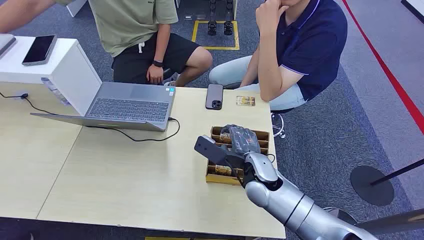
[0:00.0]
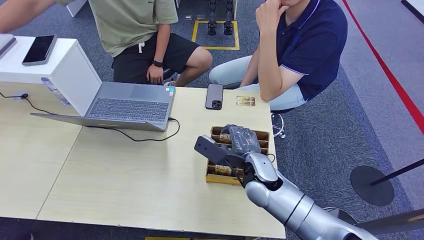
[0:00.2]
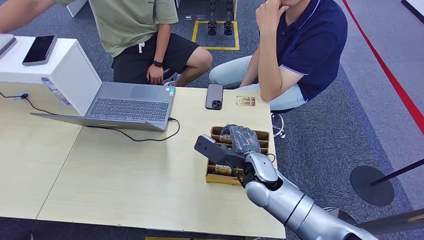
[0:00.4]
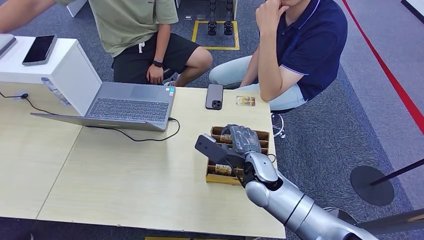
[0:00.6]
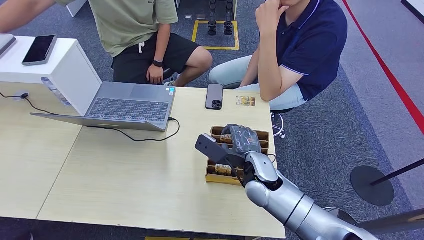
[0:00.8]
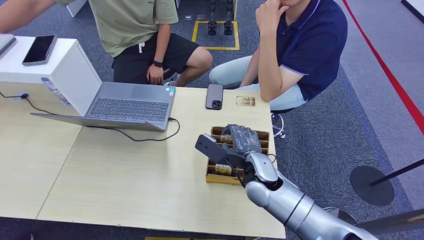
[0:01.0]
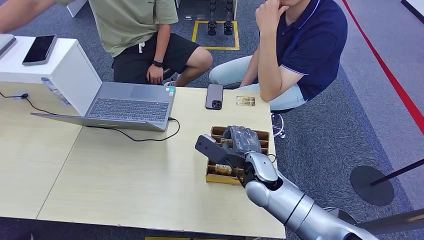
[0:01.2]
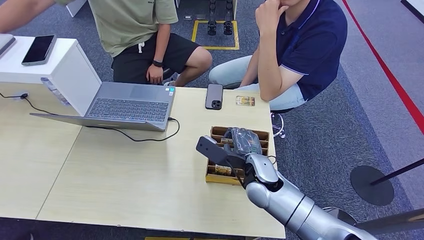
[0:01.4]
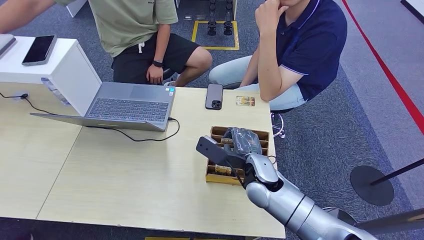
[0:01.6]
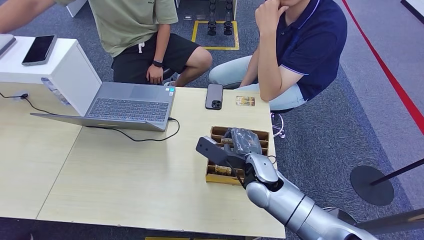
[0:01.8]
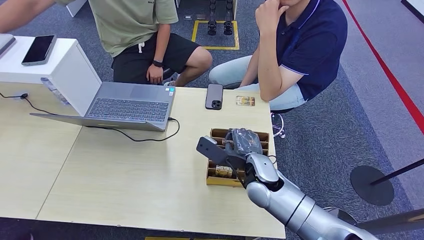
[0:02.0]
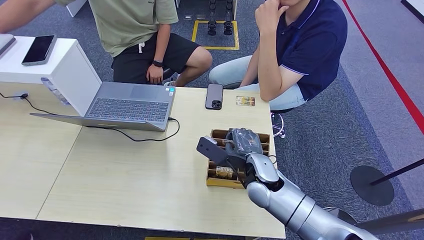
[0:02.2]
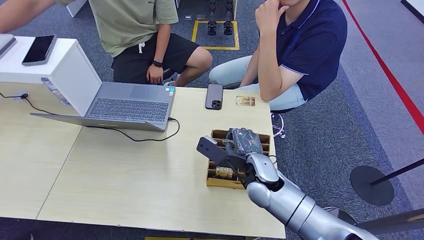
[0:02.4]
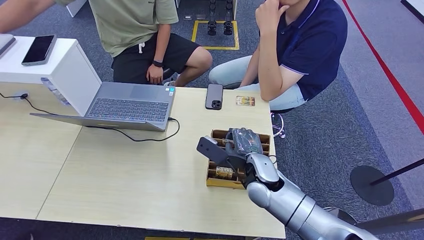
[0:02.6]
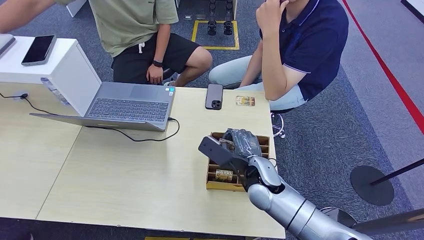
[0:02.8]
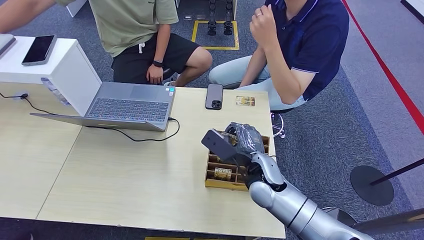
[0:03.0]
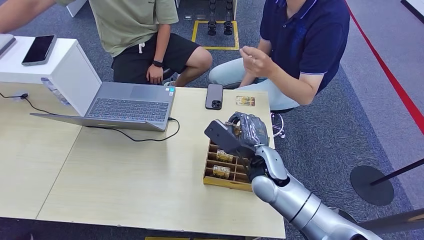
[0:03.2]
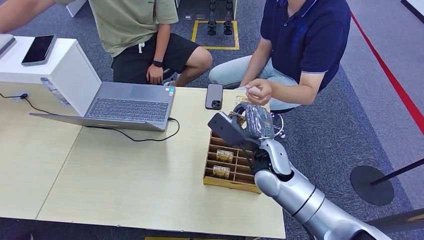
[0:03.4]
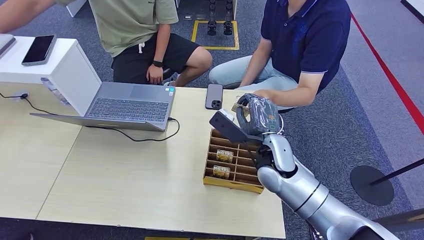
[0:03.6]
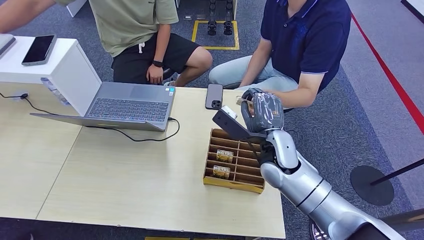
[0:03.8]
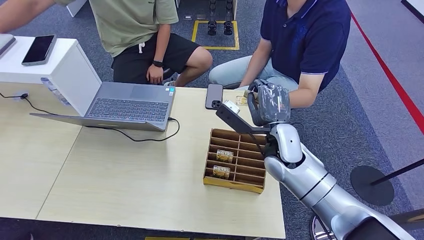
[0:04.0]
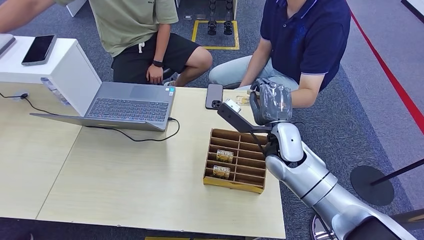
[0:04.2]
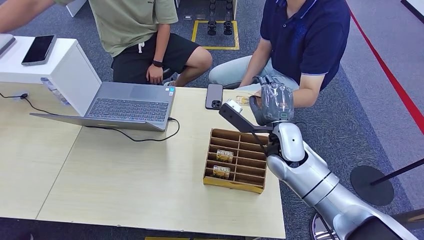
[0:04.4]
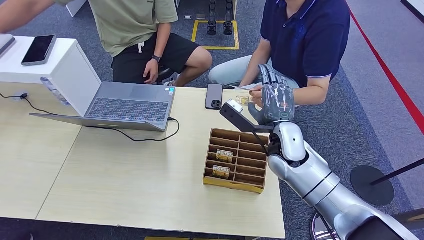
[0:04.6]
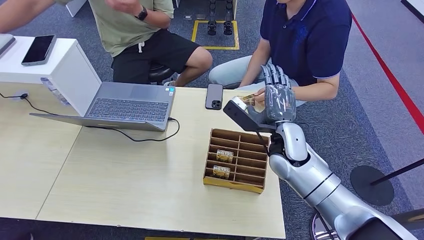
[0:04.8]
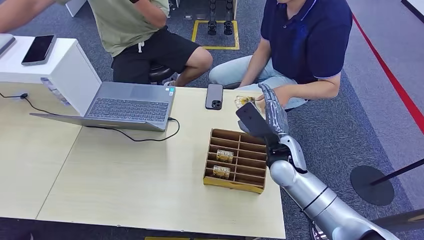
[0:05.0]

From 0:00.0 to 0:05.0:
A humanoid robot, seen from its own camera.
Step, from 0:00.0 to 0:03.2: Pick up the key card from the card box.
Step, from 0:03.4 to 0:04.8: Hand the key card to the target.
From 0:01.6 to 0:03.4: The hands make only small movements.
From 0:03.4 to 0:05.0: The right hand shifts by some 5 cm.
